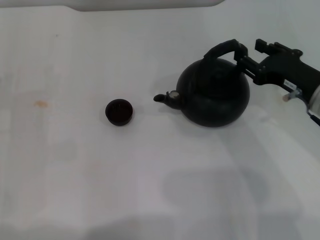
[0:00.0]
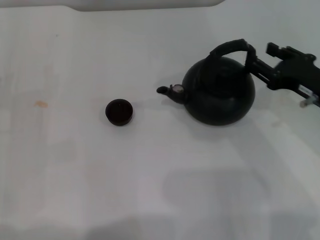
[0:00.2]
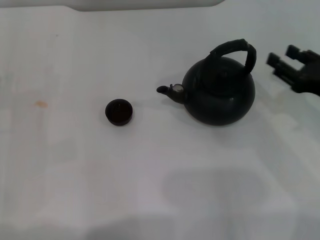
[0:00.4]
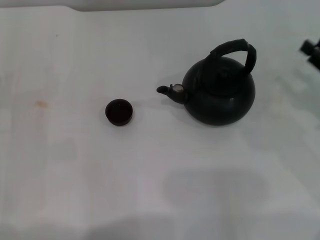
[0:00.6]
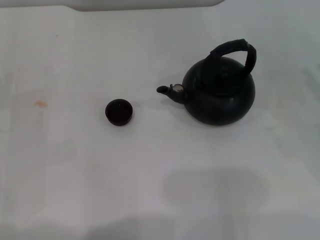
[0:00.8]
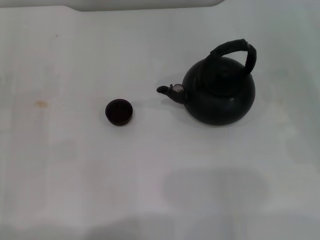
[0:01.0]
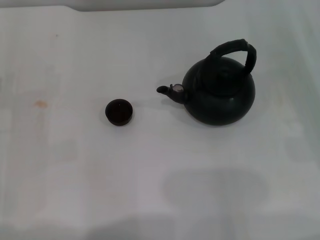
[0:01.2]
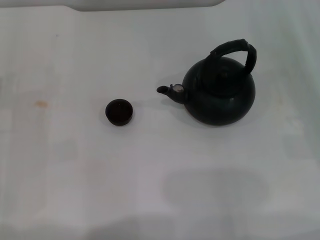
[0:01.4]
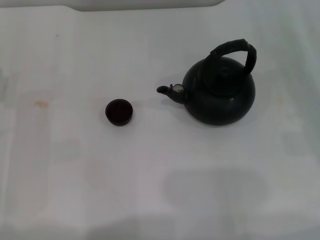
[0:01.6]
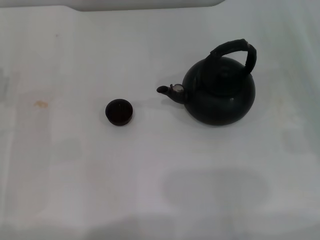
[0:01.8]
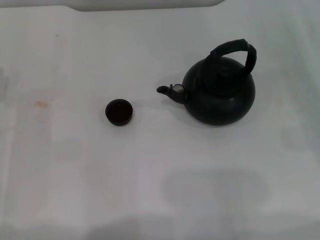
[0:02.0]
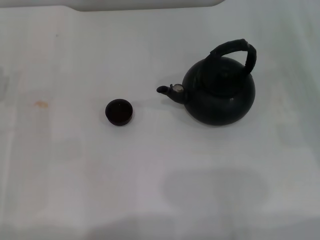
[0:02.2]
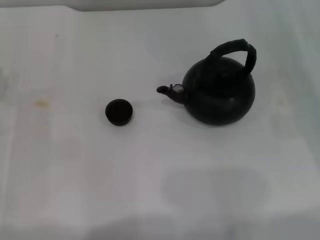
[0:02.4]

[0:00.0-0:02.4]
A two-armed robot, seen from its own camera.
Task of the whole recording: Grasp the handle of the teapot with one hand and pour tea into the teacup.
0:00.0 to 0:01.2: The right gripper travels to the right by approximately 15 cm.

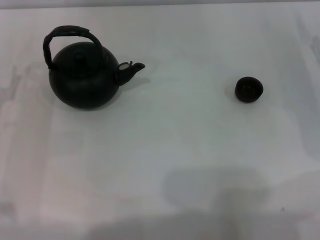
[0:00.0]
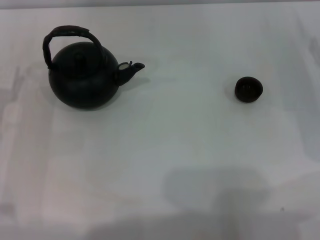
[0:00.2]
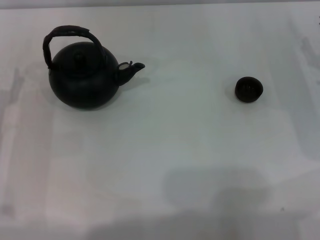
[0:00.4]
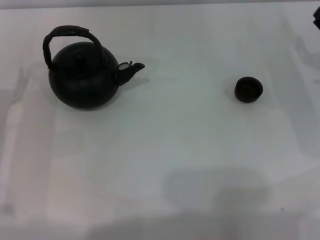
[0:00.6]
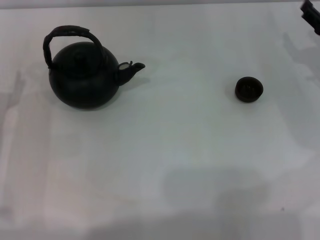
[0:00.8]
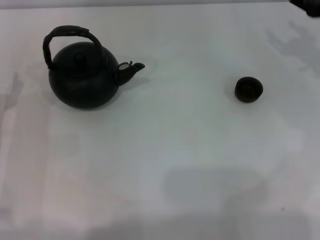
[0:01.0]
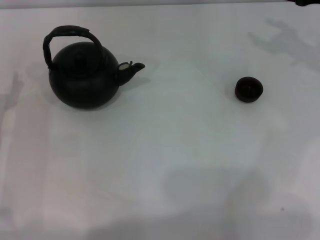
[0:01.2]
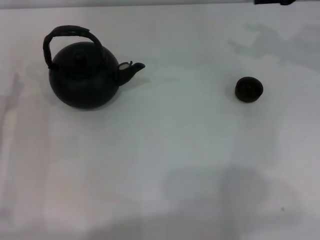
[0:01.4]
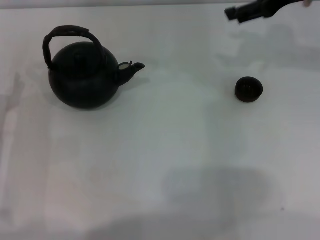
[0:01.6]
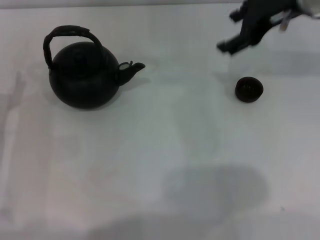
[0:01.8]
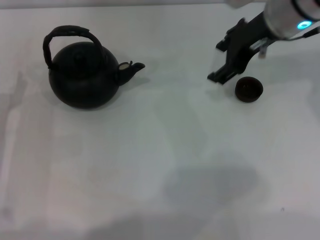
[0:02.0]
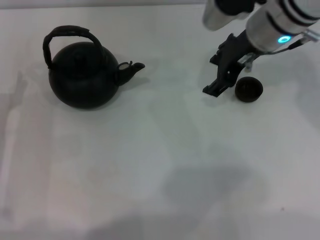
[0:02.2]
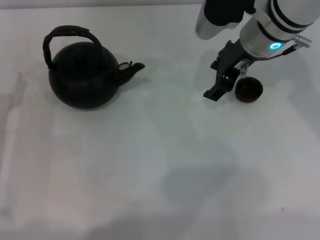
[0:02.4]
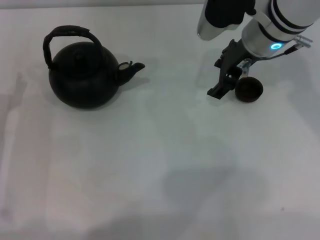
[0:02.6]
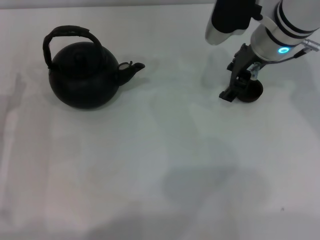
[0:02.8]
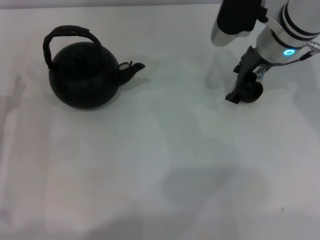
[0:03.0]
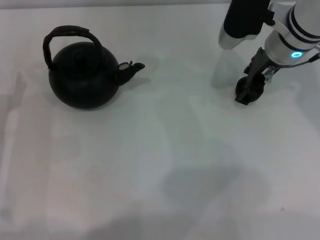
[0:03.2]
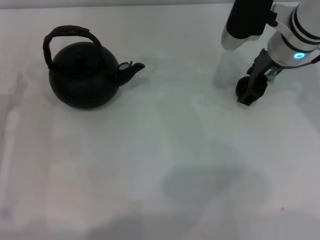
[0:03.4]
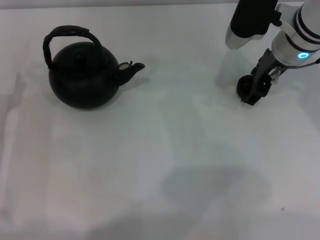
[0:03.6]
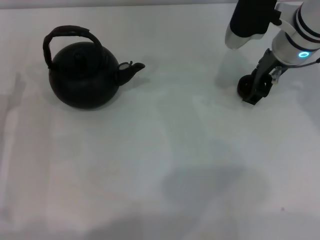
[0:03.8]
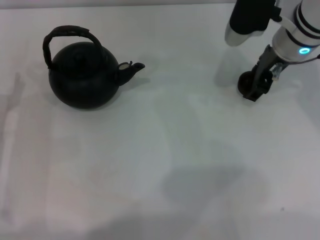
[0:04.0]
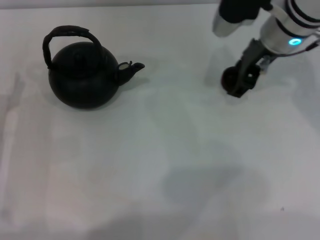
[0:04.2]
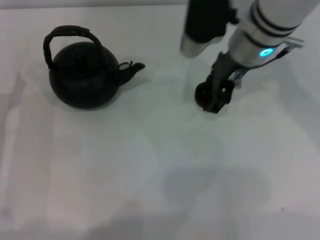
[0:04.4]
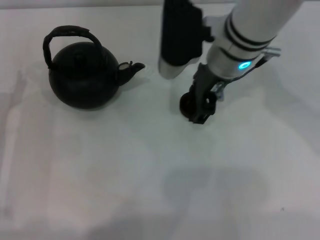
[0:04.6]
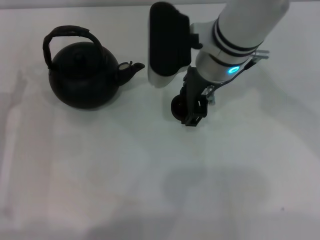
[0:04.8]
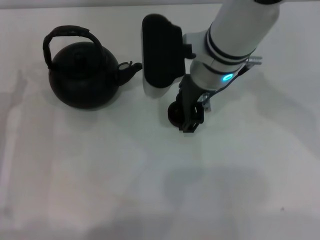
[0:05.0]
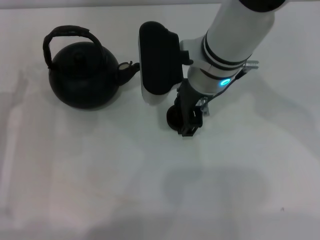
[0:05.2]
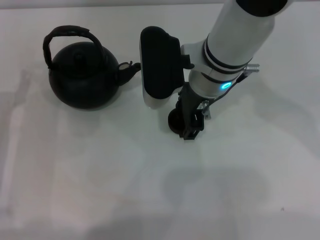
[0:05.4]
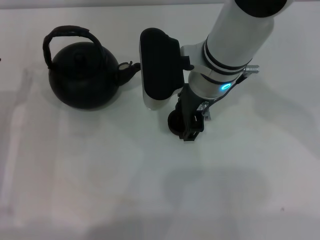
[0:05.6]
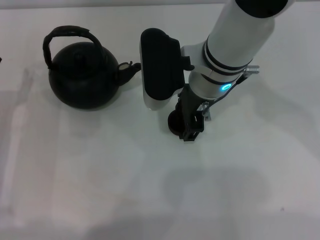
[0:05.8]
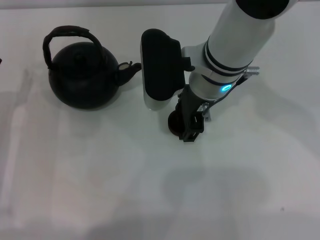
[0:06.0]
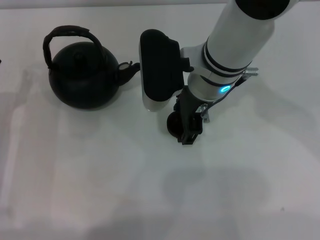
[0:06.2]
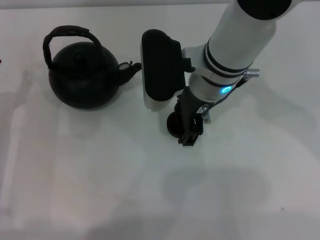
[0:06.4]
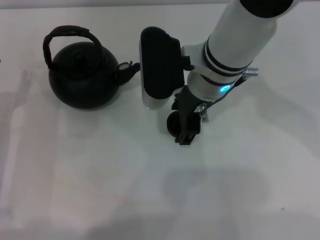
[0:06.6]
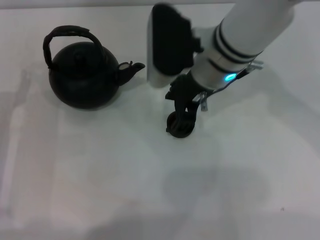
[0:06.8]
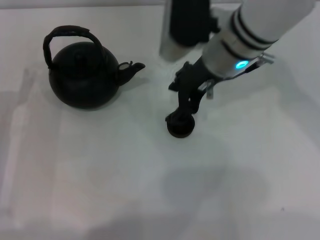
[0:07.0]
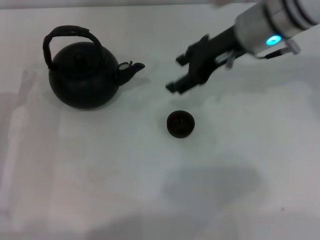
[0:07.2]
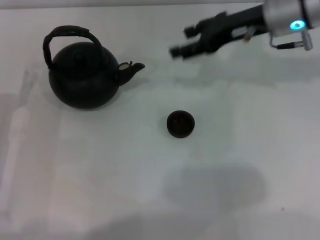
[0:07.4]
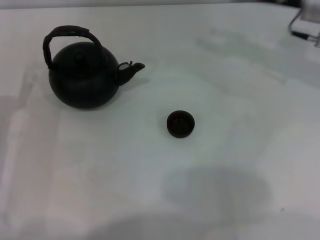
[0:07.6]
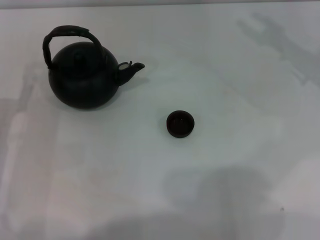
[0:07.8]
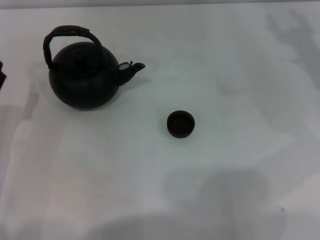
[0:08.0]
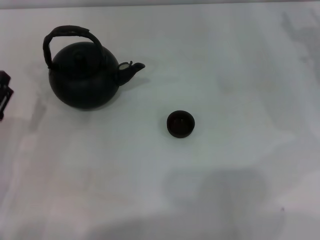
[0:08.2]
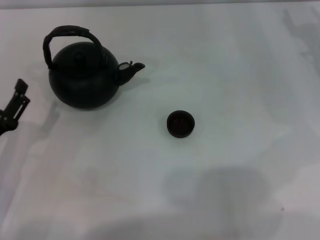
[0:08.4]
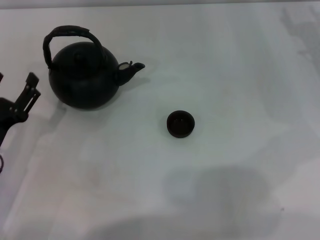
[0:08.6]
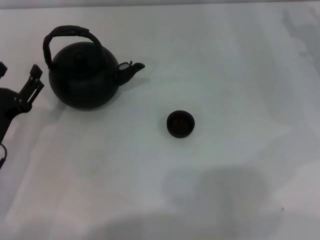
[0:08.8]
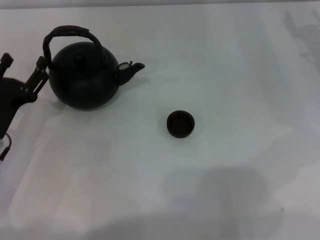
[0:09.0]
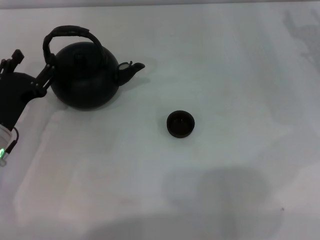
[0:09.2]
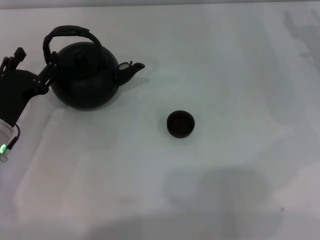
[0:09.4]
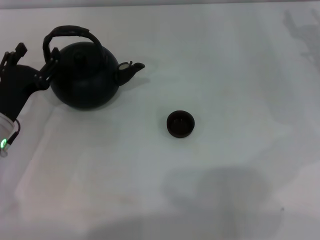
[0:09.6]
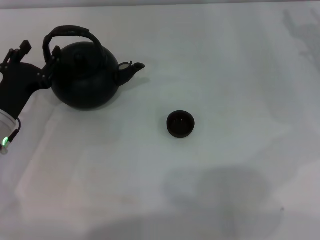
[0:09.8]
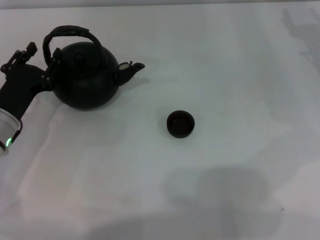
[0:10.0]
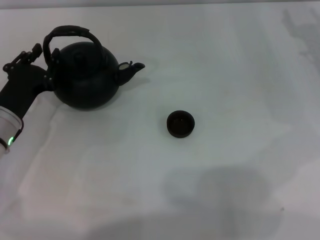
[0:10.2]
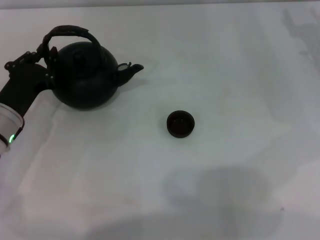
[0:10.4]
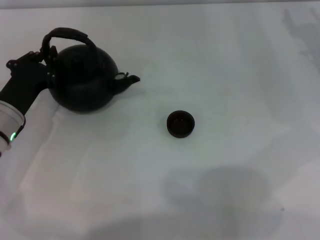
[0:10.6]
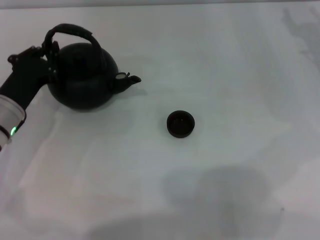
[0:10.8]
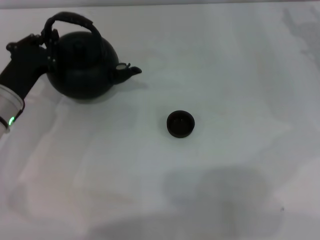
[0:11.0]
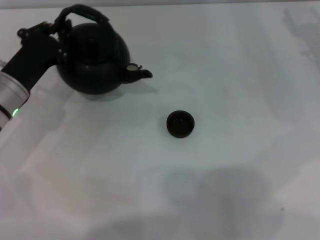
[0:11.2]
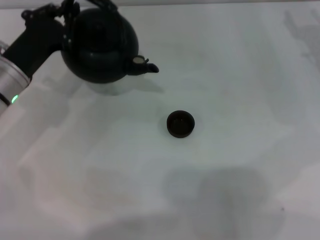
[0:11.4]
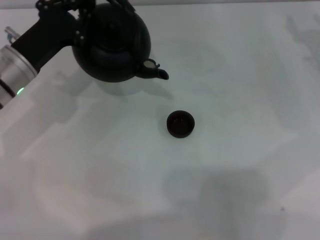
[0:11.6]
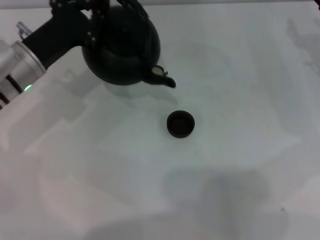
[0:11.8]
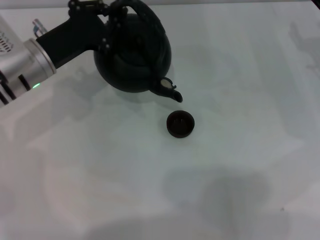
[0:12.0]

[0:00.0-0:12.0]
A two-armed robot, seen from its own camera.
Task of the whole recording: Grasp the handle of the teapot with one hand and pour tea into the teacup.
Step, 0:00.0 to 0:04.0: Pick up the teacup with the right gripper.
Step, 0:04.2 to 0:07.0: Place the teacup in the center of view with the right gripper.
Step, 0:07.2 to 0:11.2: Pick up the teapot with the left gripper.
0:00.0 to 0:01.6: The right gripper heads upward, to the left and forward, covering some 20 cm.
0:01.6 to 0:03.0: The right gripper heads to the left and downward, covering about 10 cm.
0:03.0 to 0:04.4: The right gripper shifts by about 5 cm.
0:04.4 to 0:06.0: The right gripper is displaced to the left by approximately 5 cm.
0:06.0 to 0:07.6: The right gripper heads to the right, covering approximately 20 cm.
0:07.6 to 0:09.0: The right gripper is displaced downward and to the right by approximately 10 cm.
0:09.0 to 0:10.4: The left gripper closes up.
0:10.4 to 0:12.0: The left gripper goes some 10 cm forward and upward, and closes up.

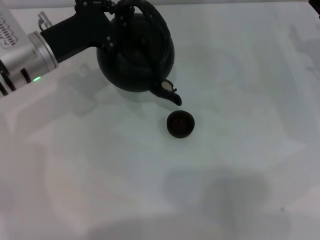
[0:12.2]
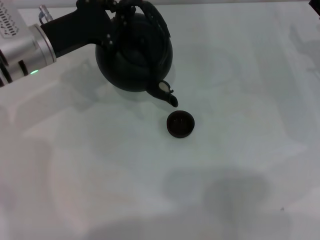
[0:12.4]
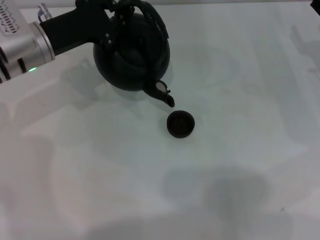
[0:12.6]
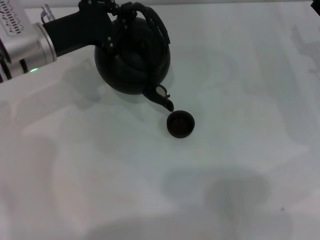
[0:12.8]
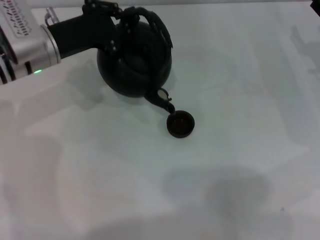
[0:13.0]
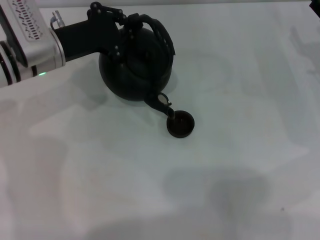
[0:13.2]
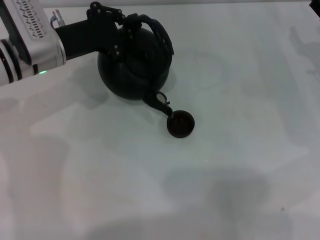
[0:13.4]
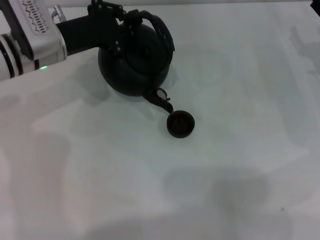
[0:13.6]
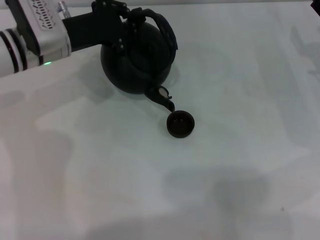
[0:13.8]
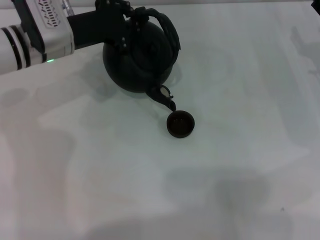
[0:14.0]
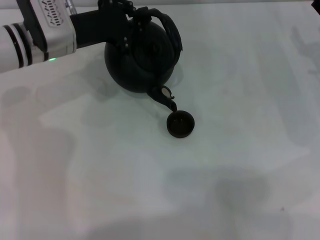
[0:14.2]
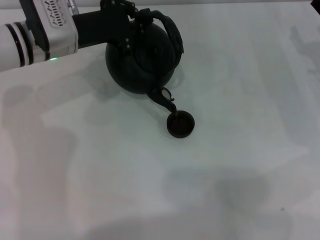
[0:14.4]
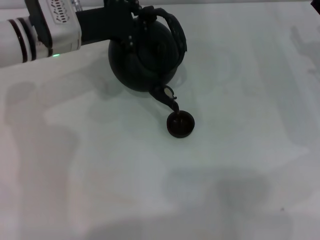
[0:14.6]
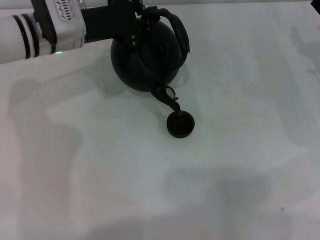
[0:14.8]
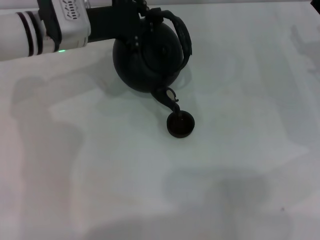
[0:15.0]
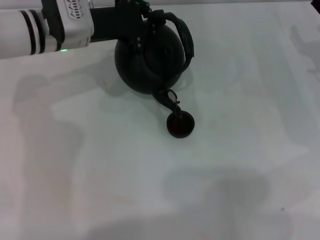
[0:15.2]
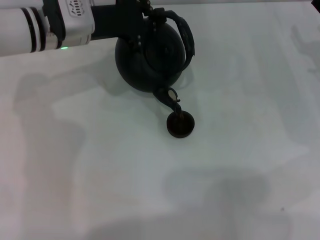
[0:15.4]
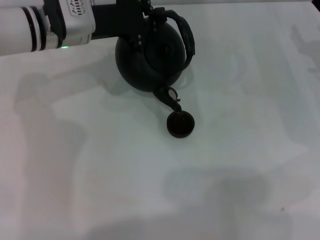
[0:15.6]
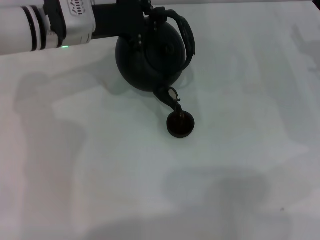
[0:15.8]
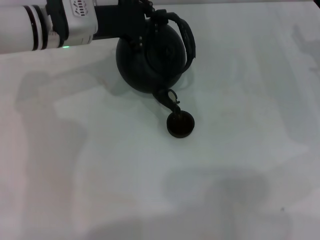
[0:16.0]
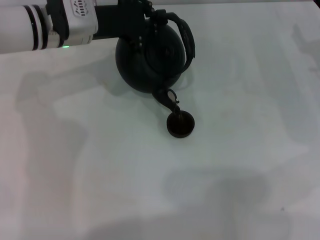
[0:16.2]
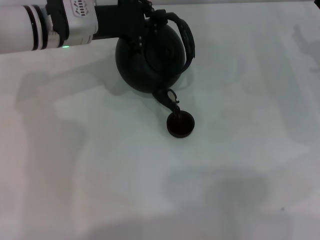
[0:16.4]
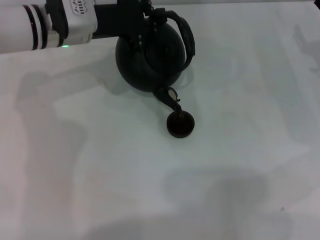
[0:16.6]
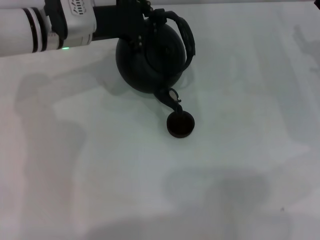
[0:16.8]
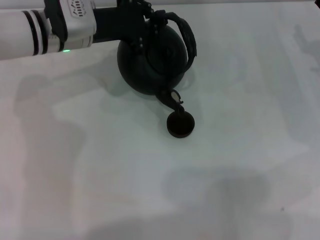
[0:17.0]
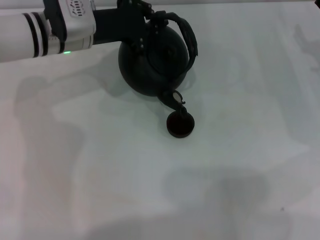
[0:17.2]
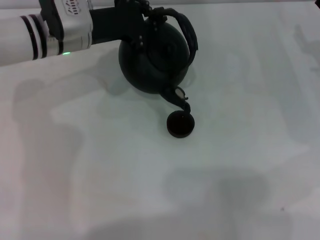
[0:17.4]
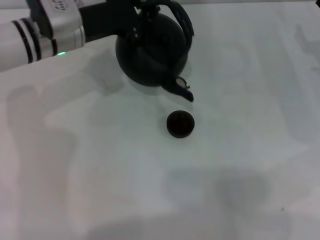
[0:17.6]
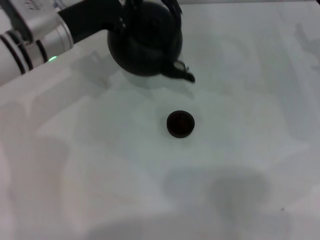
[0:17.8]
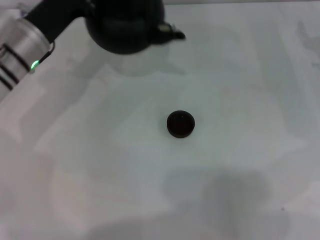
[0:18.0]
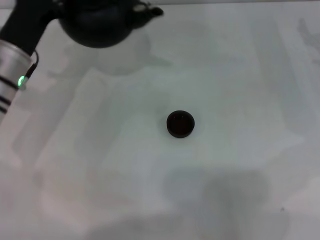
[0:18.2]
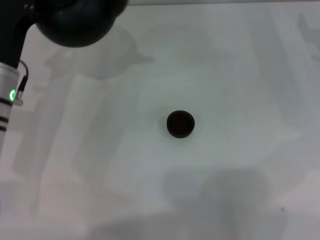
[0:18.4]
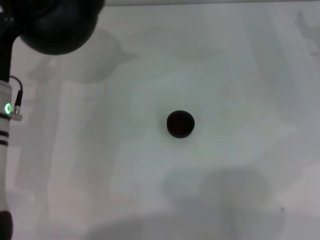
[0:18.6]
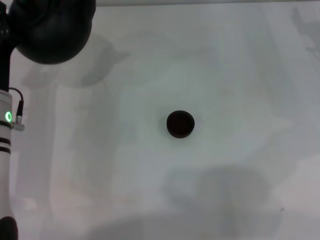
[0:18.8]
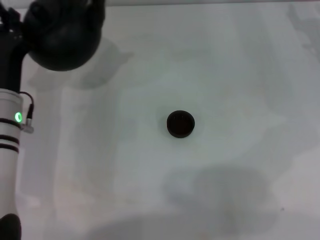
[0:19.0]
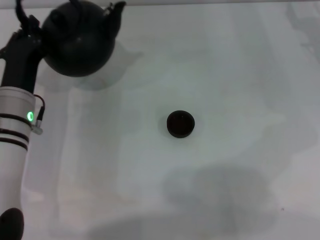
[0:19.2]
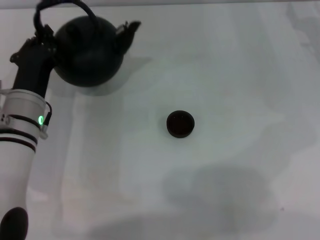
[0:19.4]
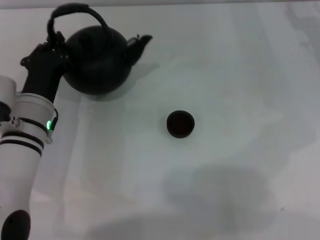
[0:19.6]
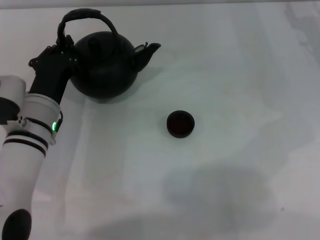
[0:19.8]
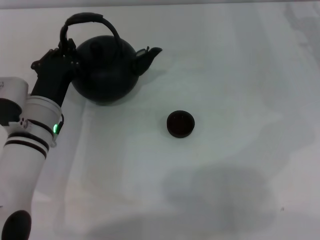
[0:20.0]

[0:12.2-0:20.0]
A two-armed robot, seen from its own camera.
Task of the whole recording: Grasp the handle of the teapot with one hand and pour tea into the teacup.
Step, 0:12.2 to 0:17.6: Pour tea into the teacup with the left gripper.
0:12.2 to 0:13.8: There are only small adjustments of the grippers.
0:13.8 to 0:15.4: The grippers stay close to where they were, moving slightly.
0:15.4 to 0:16.8: Both grippers stay put.
0:16.8 to 0:18.4: The left gripper goes some 10 cm backward and to the left.
0:18.4 to 0:20.0: The left gripper ends up roughly 5 cm from where it was.
